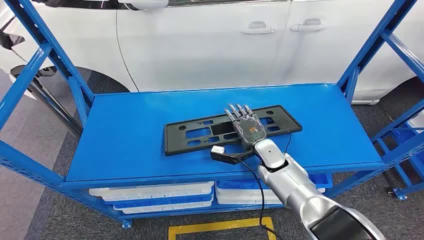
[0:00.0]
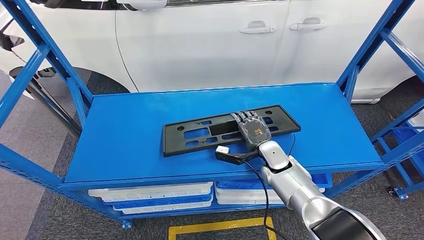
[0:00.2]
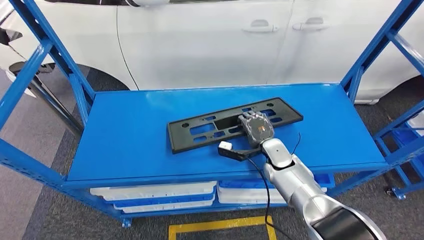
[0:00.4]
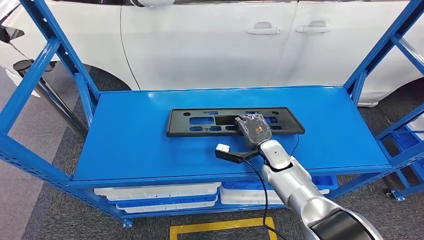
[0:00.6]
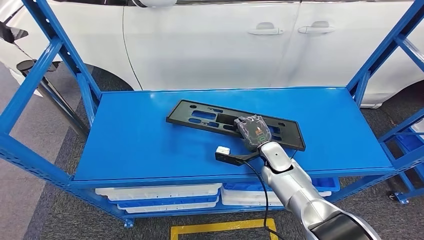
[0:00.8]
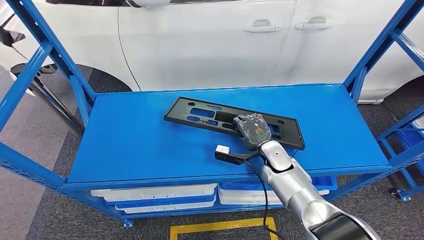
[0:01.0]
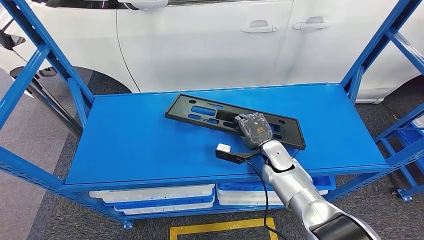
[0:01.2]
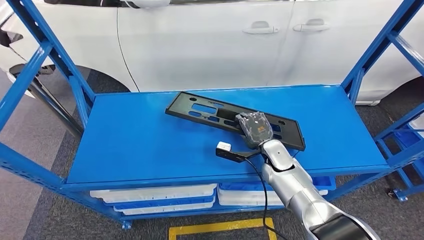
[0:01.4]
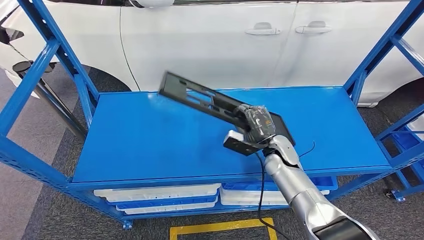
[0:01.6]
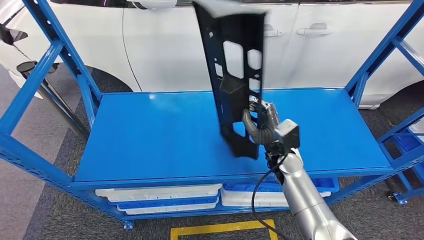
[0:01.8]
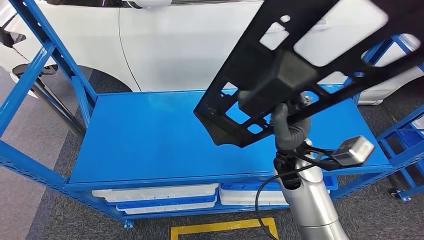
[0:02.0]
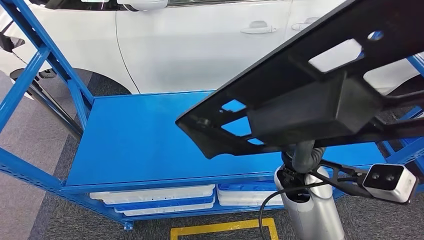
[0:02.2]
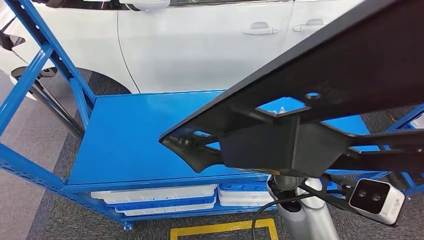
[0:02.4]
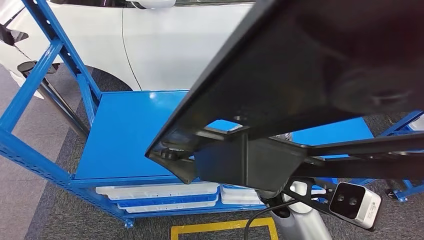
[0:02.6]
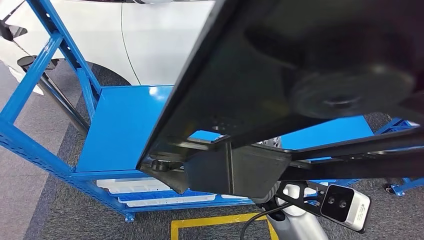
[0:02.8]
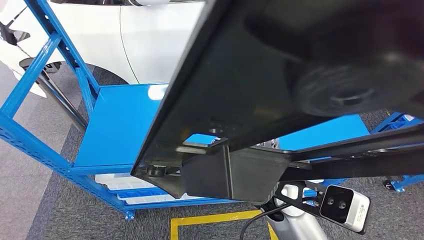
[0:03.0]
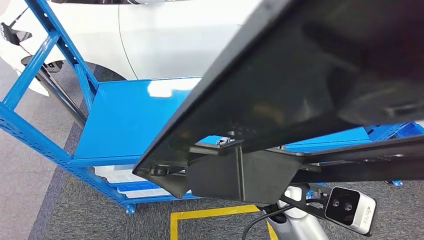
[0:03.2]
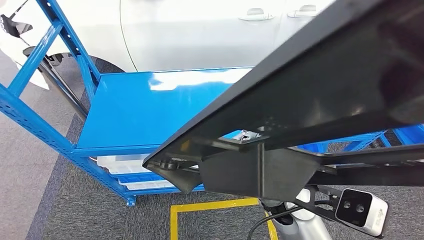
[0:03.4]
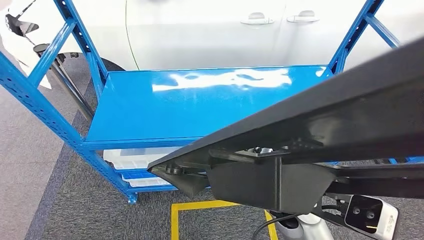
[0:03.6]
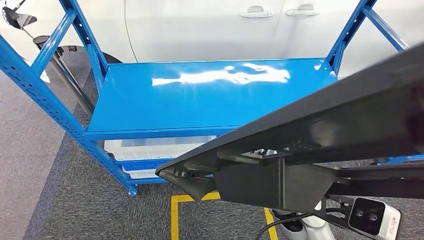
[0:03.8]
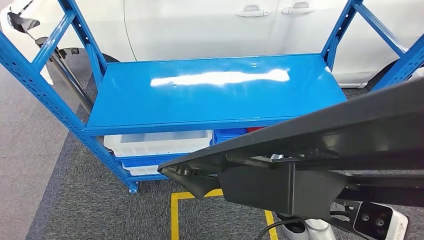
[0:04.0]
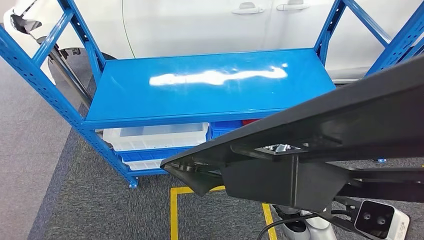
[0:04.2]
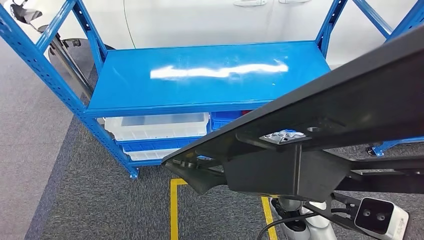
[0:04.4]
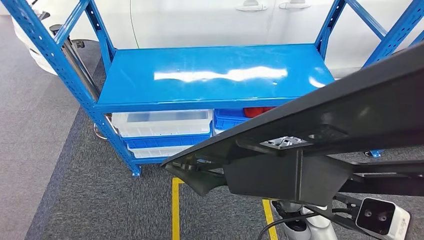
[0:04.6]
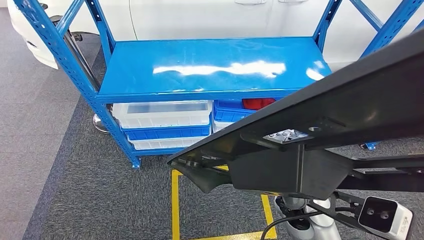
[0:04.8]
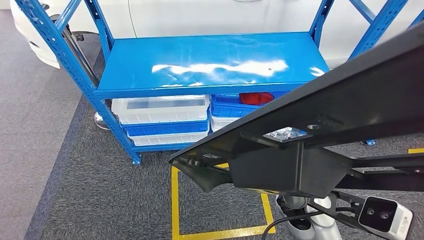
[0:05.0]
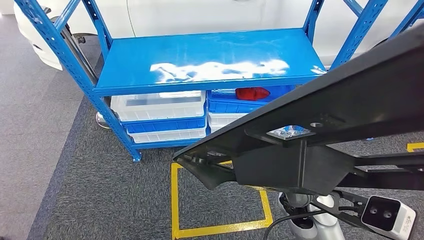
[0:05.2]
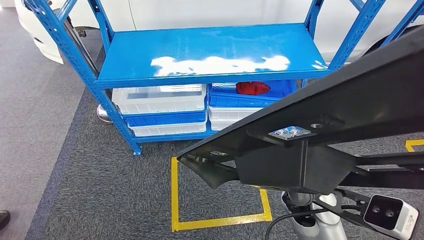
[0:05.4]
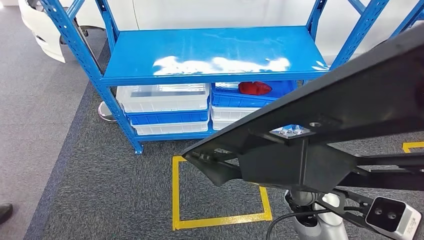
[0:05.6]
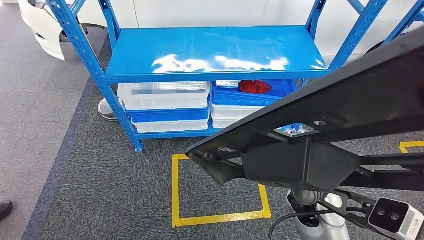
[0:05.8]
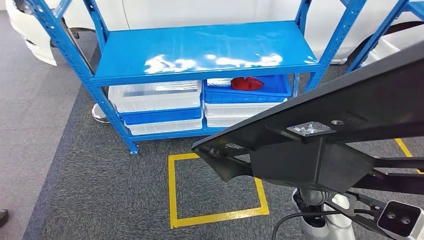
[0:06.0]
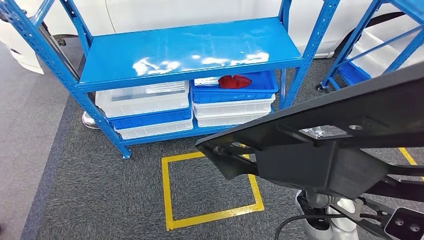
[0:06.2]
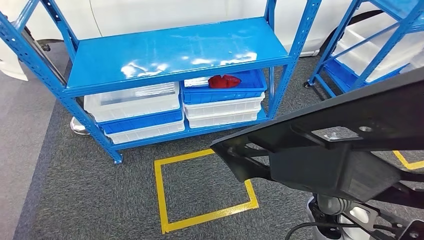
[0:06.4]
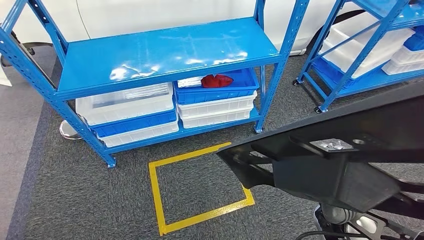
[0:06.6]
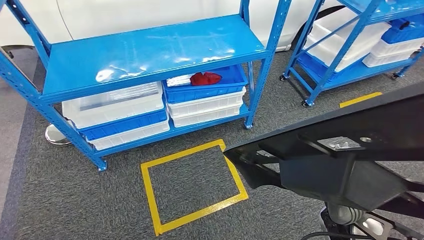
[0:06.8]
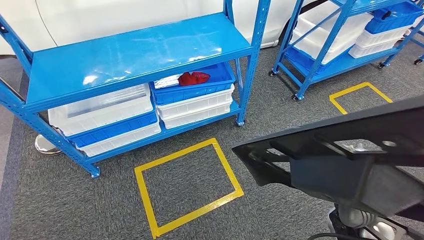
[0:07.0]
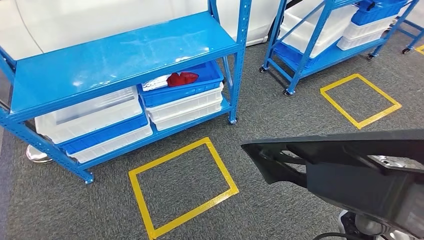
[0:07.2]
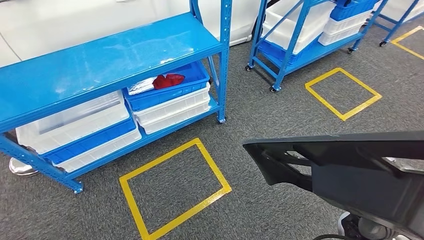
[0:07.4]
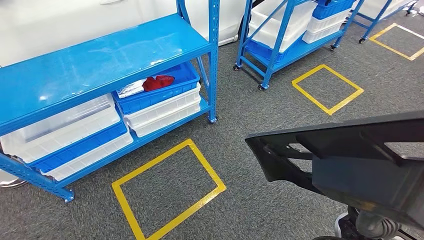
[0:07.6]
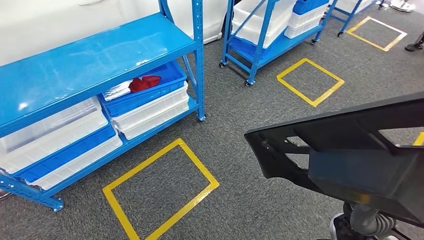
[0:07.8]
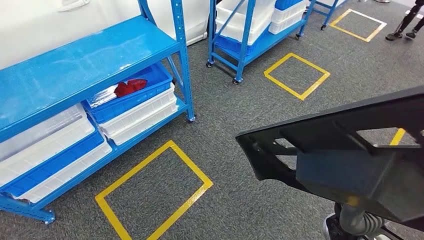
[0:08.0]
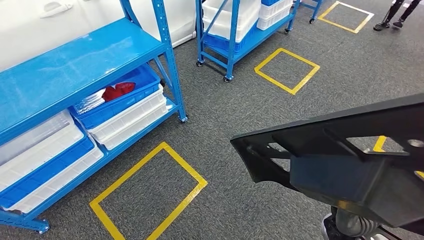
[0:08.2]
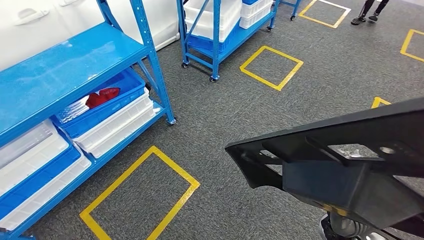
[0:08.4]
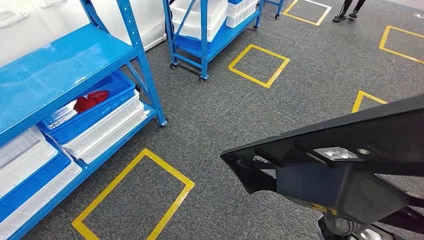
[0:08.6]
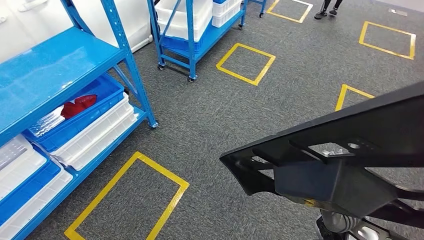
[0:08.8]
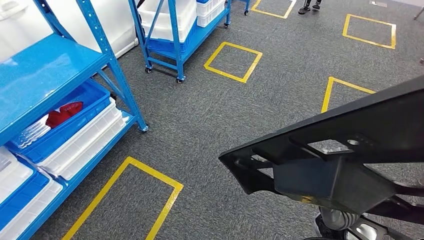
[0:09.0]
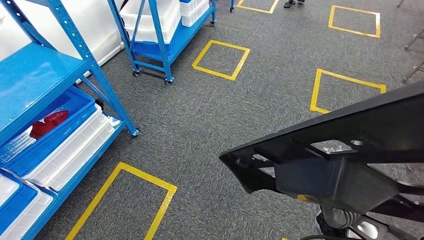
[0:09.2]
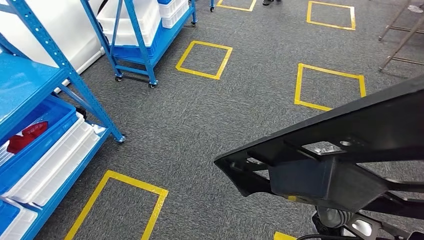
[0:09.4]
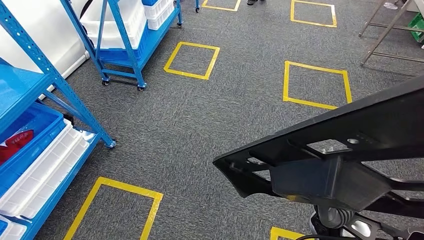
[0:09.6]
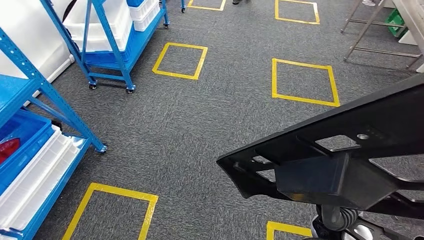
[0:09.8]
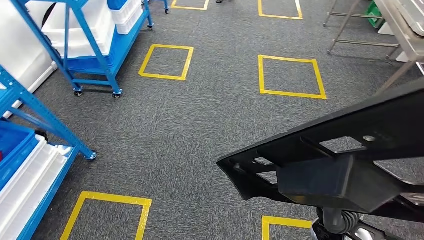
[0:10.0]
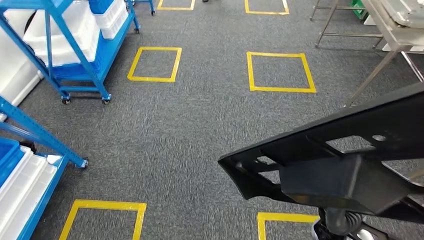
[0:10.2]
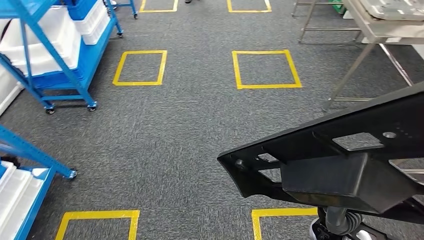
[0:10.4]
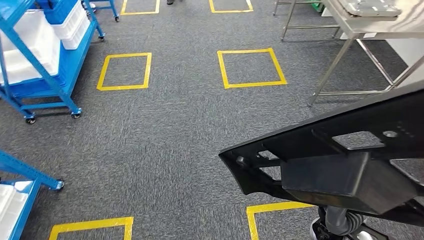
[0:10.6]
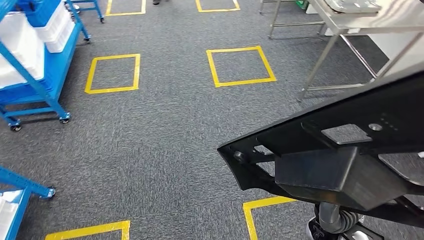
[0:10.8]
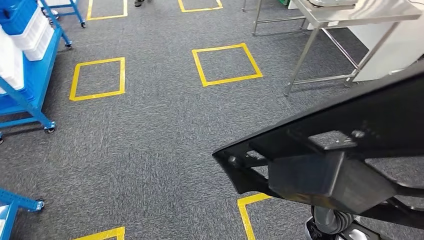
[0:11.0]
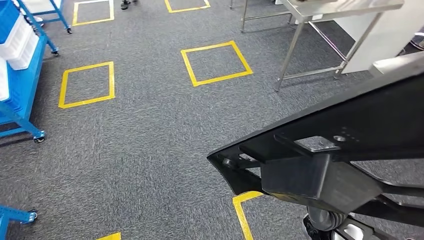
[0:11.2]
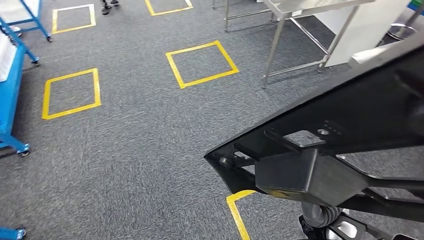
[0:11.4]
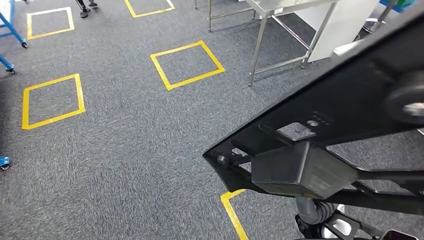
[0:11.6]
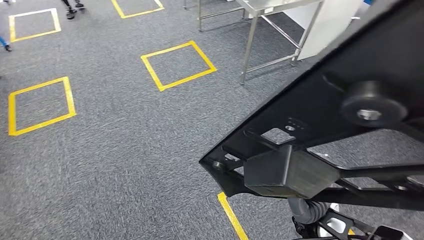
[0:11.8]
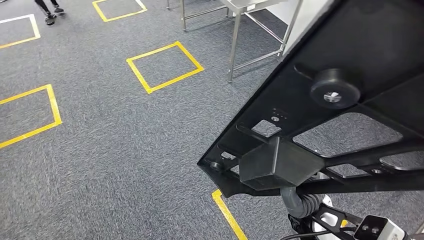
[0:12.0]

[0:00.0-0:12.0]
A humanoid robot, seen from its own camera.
Step, 0:00.0 to 0:03.2: Pick up the large material from the shelf.

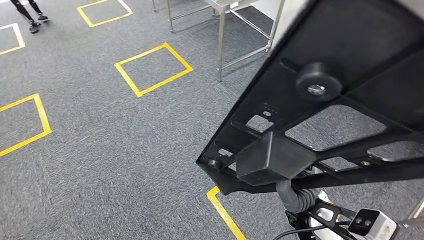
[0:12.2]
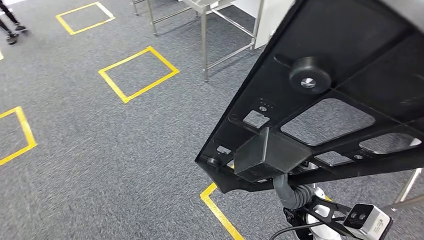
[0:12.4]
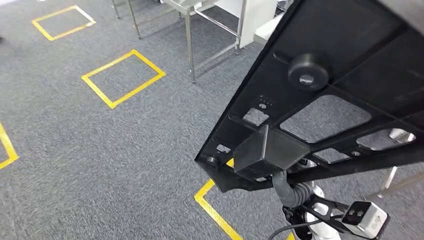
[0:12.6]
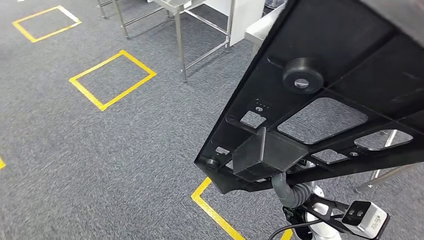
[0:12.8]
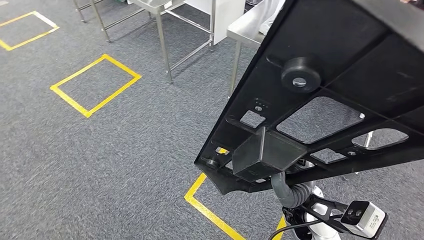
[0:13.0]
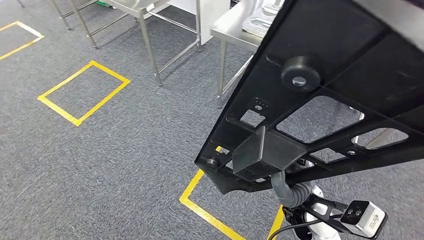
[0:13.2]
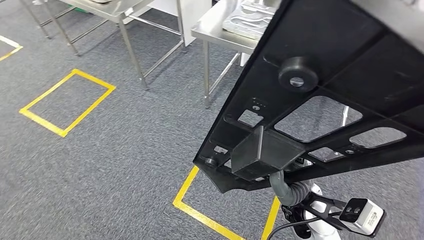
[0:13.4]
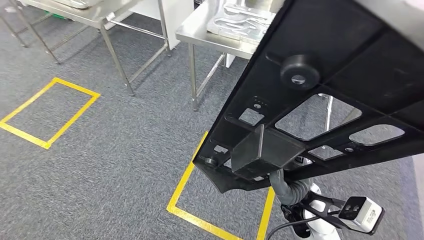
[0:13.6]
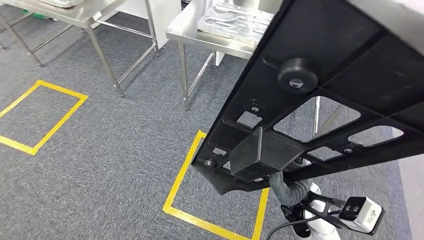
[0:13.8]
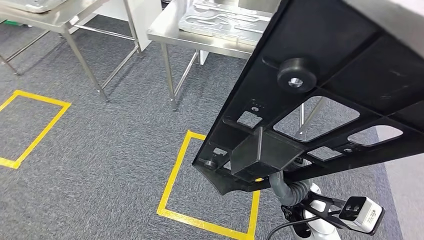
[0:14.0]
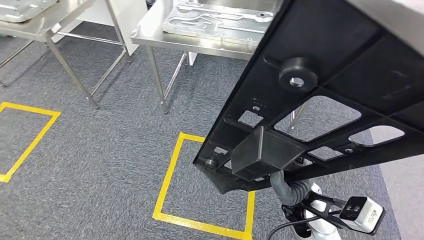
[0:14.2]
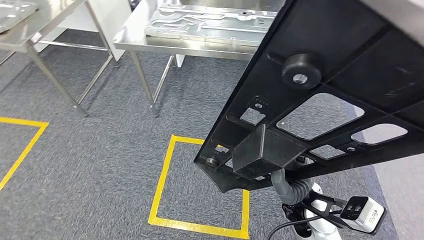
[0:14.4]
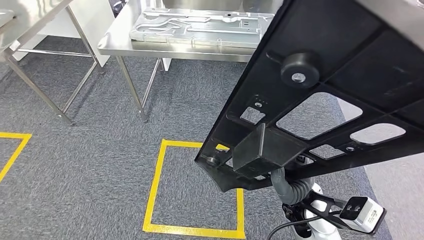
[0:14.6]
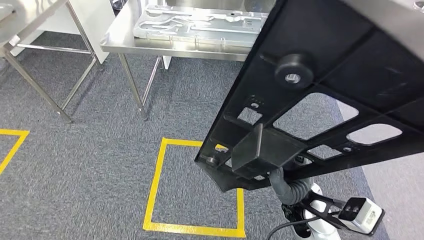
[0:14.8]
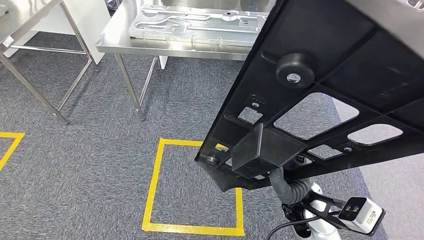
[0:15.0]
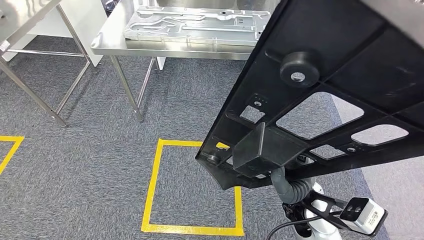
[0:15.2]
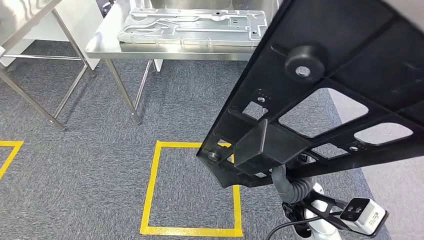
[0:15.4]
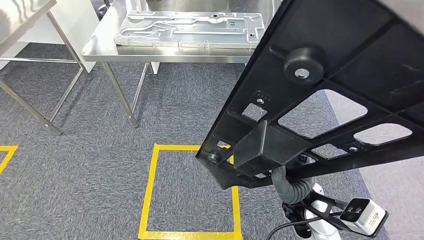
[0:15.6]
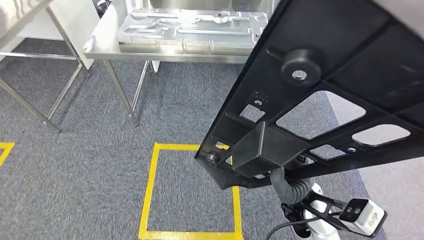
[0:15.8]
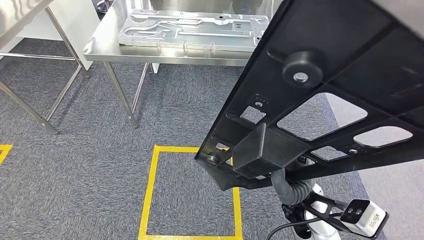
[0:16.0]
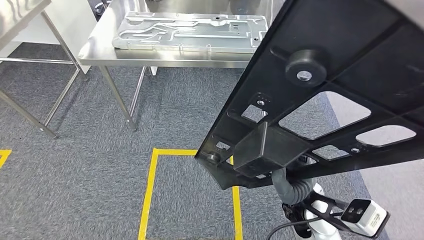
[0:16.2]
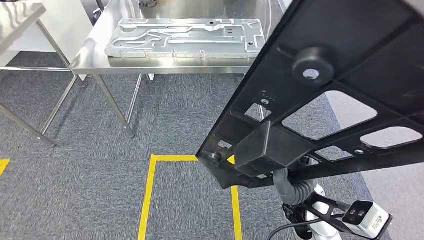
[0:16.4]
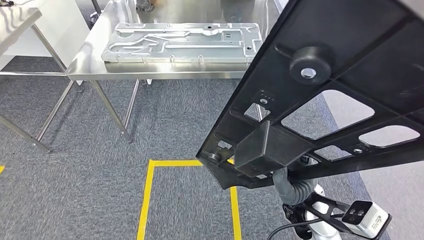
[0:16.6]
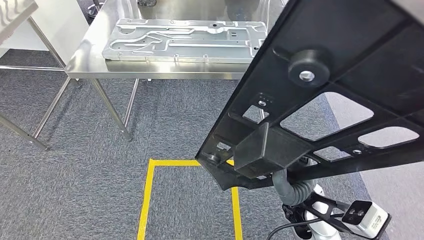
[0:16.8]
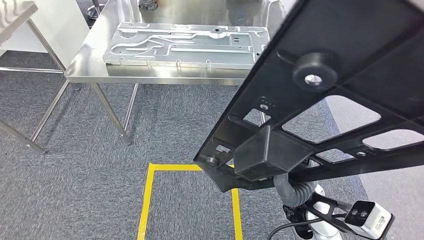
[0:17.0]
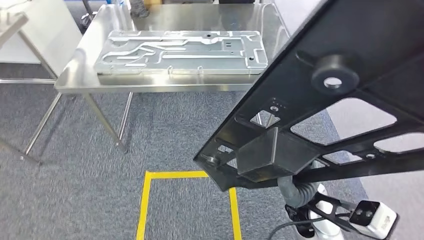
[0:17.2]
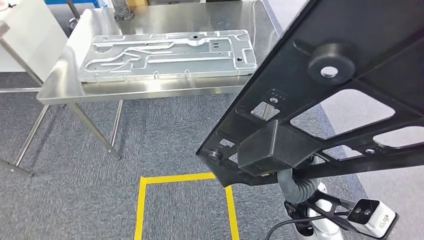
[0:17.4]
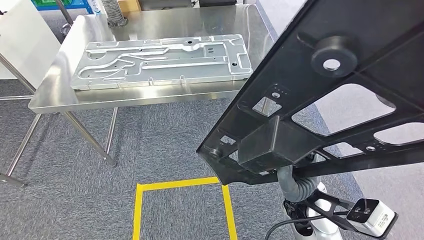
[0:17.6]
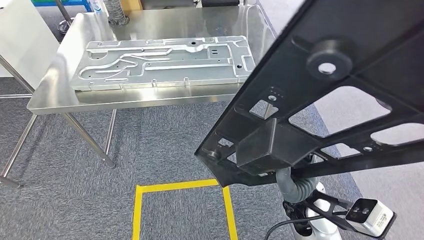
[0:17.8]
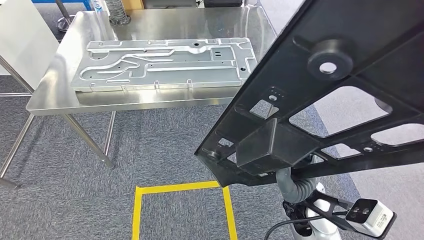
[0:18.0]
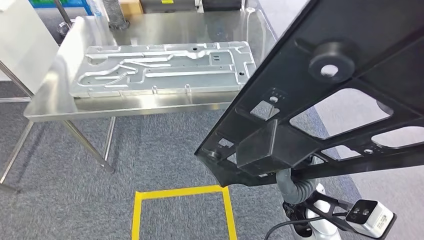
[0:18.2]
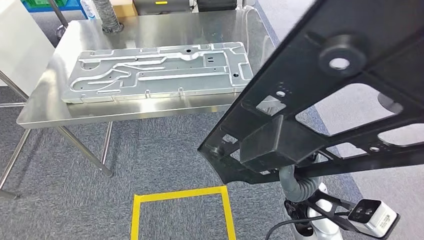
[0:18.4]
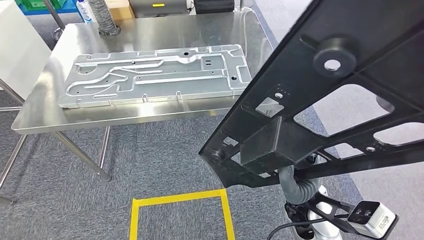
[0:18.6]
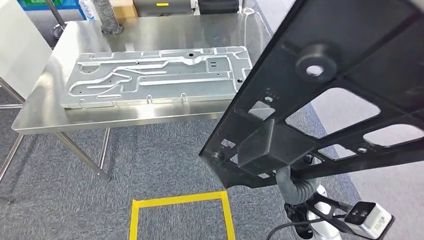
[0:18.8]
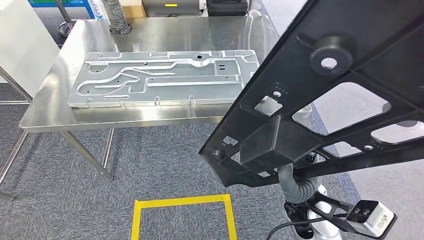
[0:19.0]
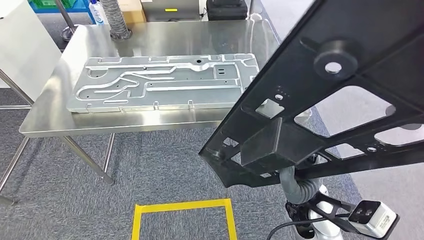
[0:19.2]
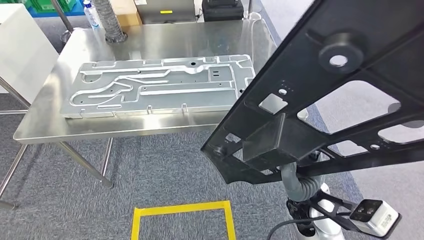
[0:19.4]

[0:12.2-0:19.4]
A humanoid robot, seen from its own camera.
Step, 0:12.2 to 0:17.8: Move the large material to the workbench.
